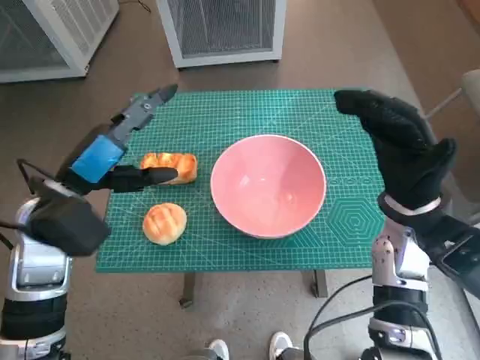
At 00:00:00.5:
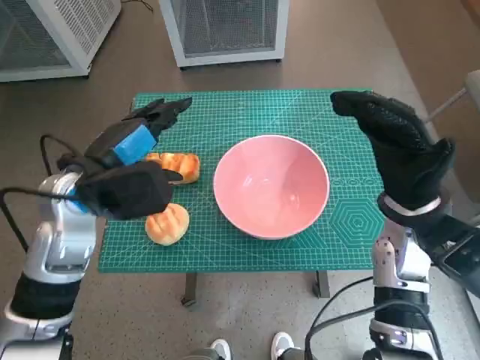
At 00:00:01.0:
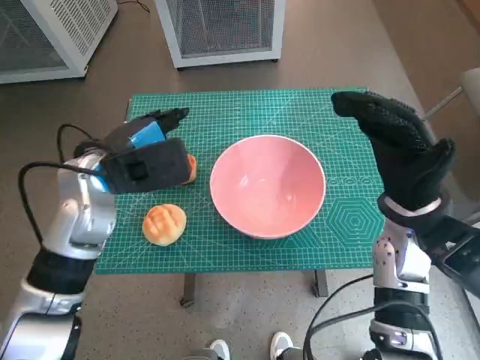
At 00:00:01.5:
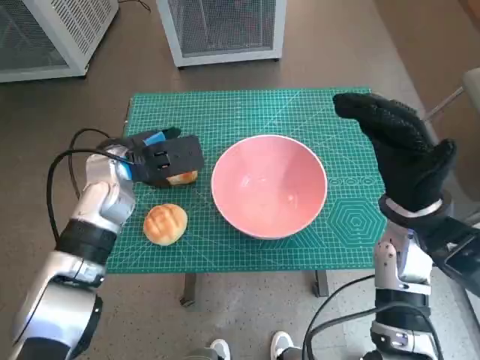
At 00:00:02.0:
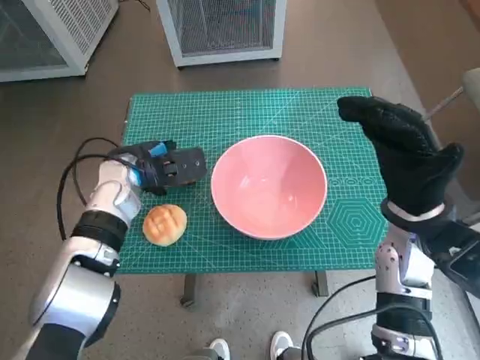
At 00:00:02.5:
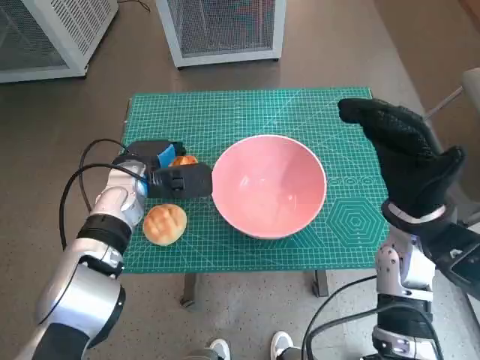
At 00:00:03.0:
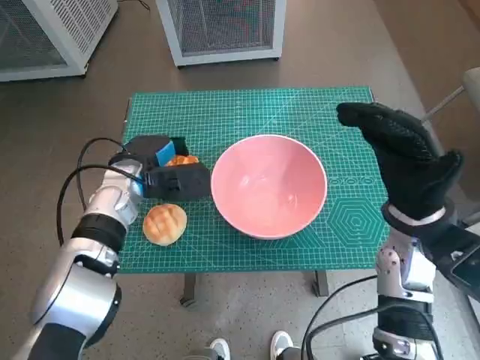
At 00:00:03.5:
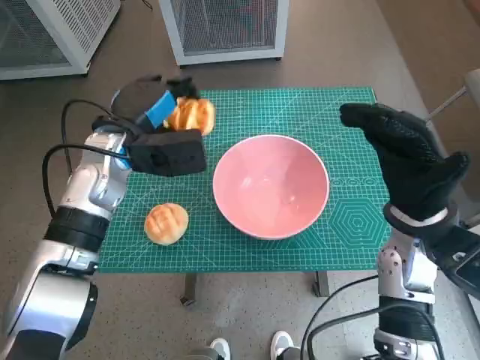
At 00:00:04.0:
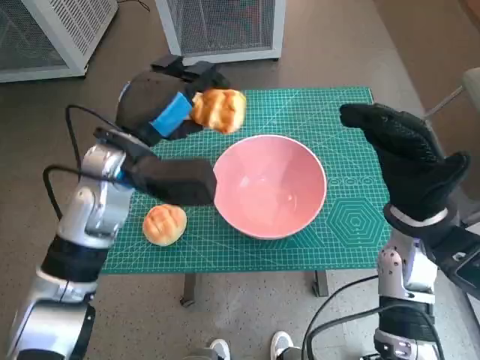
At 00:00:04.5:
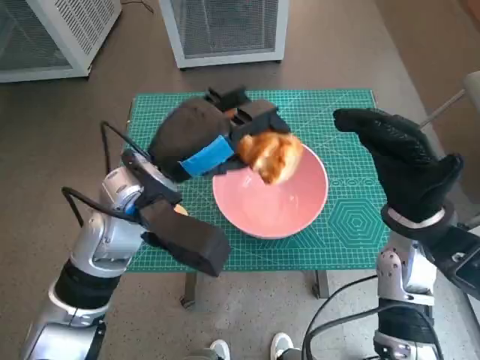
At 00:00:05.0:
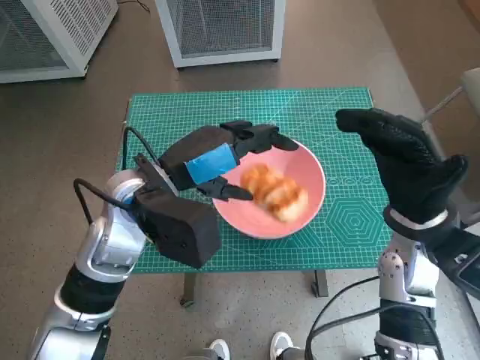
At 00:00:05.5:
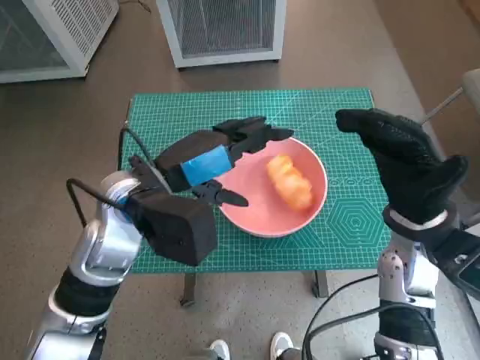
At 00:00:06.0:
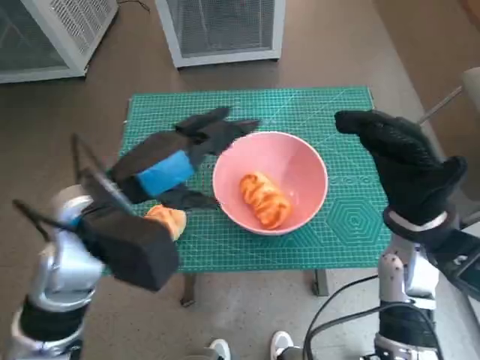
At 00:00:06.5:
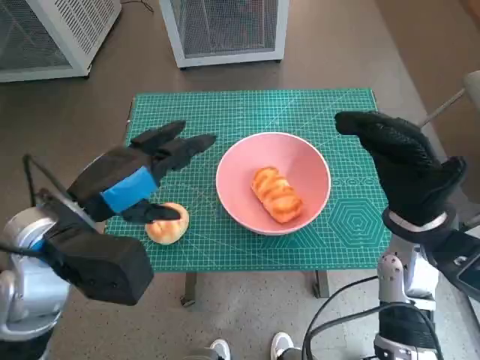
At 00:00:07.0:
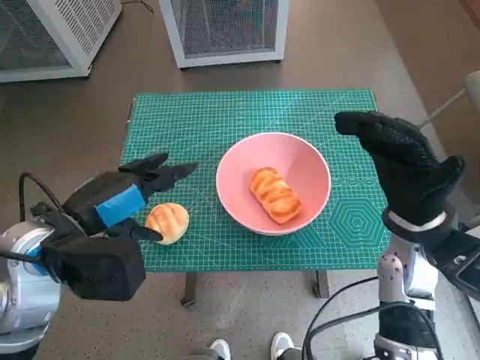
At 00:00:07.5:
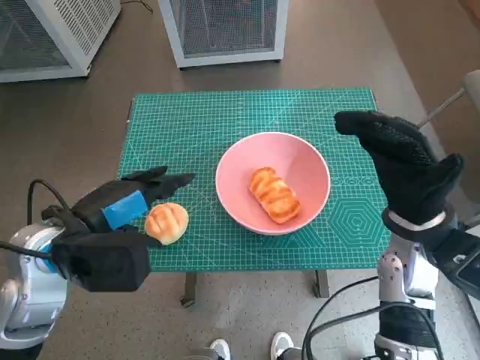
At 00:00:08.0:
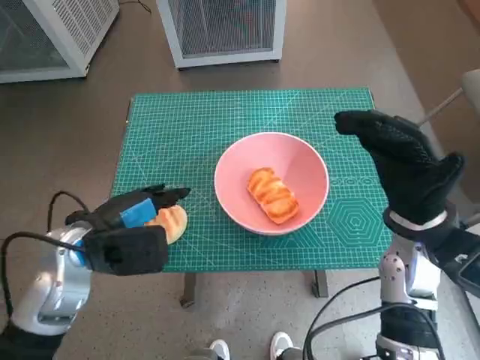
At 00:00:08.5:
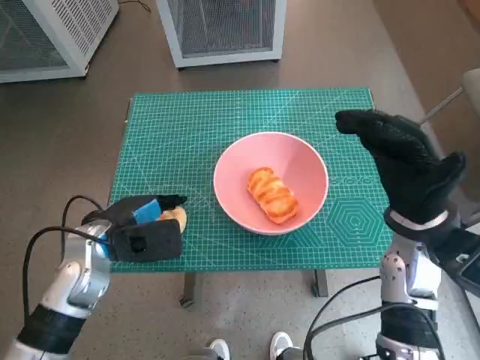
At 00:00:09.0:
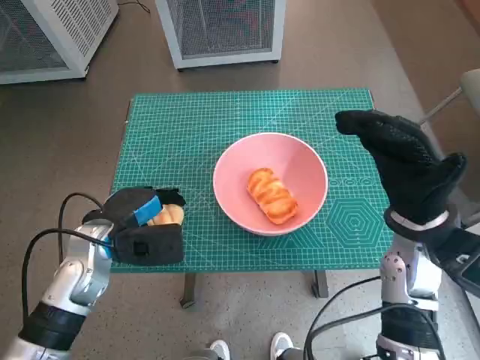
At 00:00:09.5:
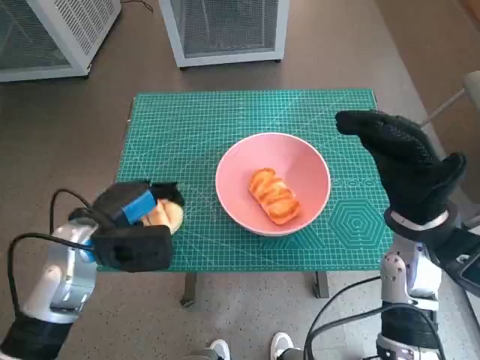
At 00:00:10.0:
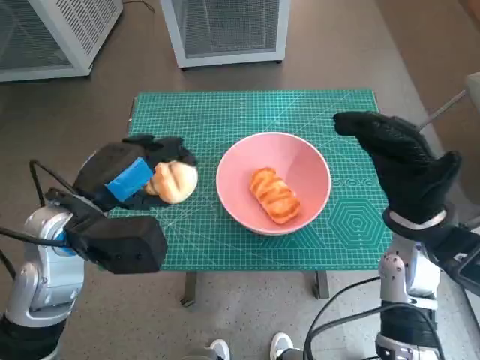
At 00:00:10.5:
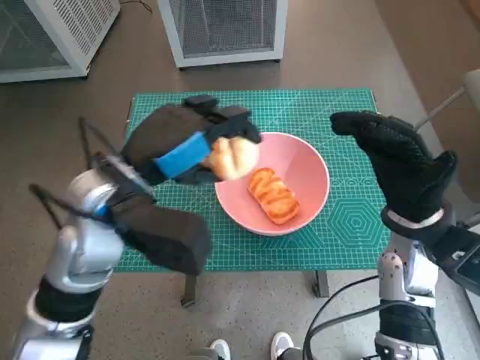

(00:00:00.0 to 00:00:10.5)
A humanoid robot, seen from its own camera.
Task of the whole recording: Push the bowl into the center of the table and put the bread into the bowl.
Step, 00:00:00.0 - 00:00:02.0: Grasp the long bread with left hand.
Step, 00:00:02.5 - 00:00:05.0: Place the long bread in pink bowl with left hand.
Step, 00:00:05.5 - 00:00:08.5: Grasp the round bread with left hand.
00:00:00.0 - 00:00:02.0: The left hand heads forward and downward, covering roughly 10 cm.
00:00:02.0 - 00:00:04.0: The left hand goes about 10 cm upward.
00:00:04.0 - 00:00:06.5: The left hand goes some 10 cm backward.
00:00:06.5 - 00:00:08.5: The left hand heads downward, covering some 10 cm.
00:00:08.5 - 00:00:10.5: The left hand shifts roughly 15 cm upward and to the right.

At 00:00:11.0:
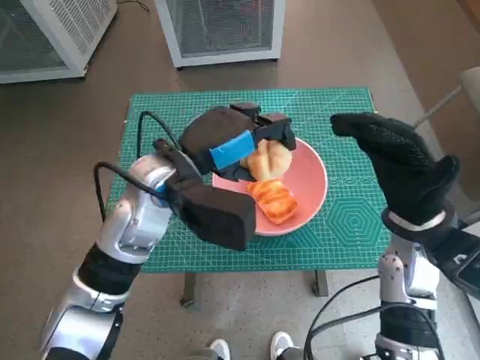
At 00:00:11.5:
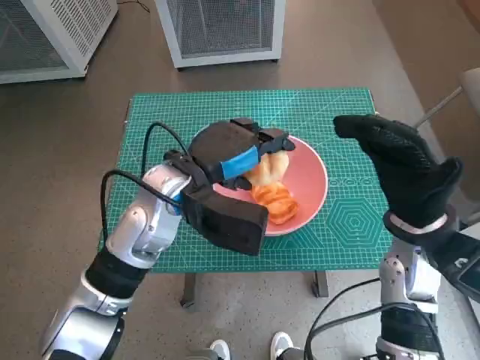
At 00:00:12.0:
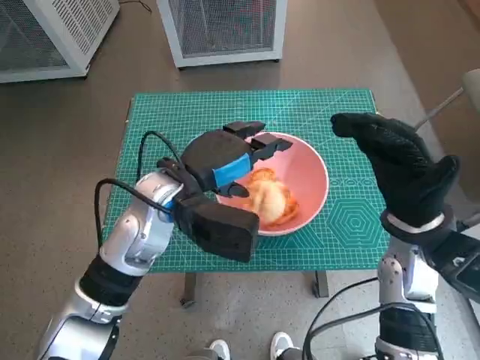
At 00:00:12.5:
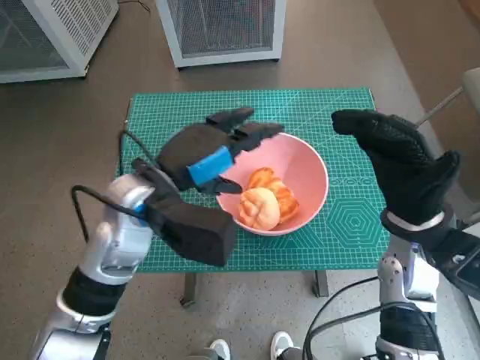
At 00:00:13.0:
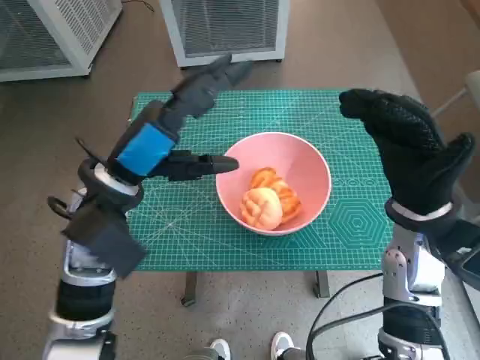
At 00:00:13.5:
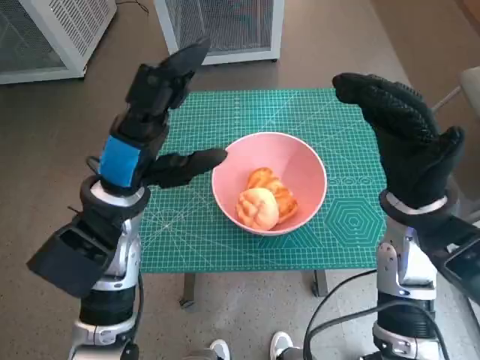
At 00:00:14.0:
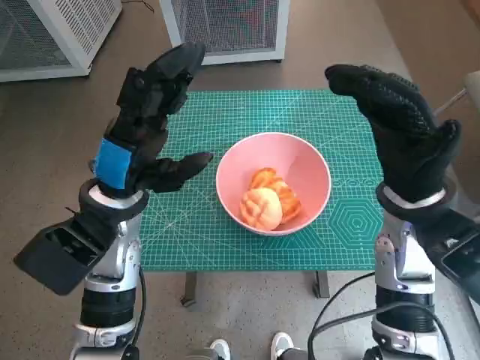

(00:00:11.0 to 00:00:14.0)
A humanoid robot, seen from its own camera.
Task of the whole recording: Push the bowl into the center of the table and put the bread into the bowl.
00:00:11.0 - 00:00:12.5: There are only small adjustments of the hands.

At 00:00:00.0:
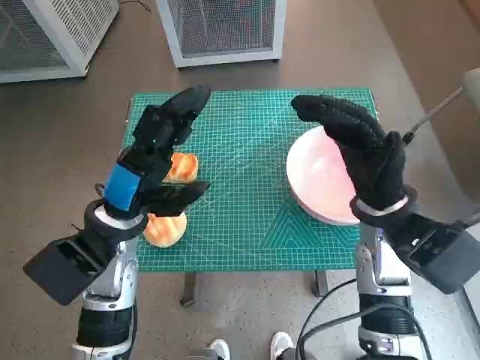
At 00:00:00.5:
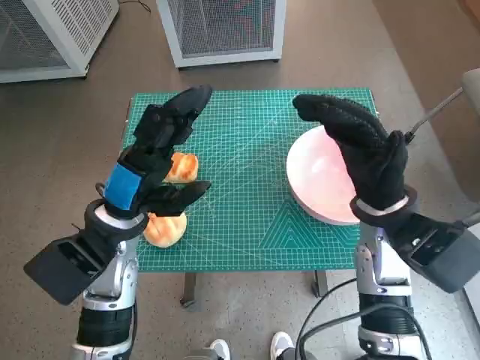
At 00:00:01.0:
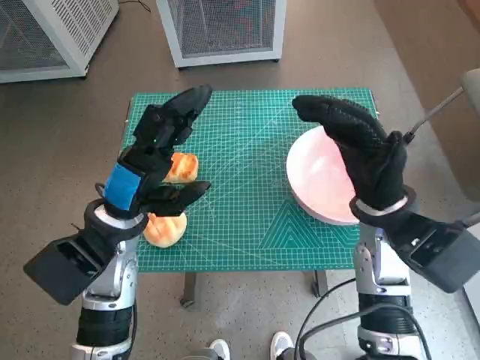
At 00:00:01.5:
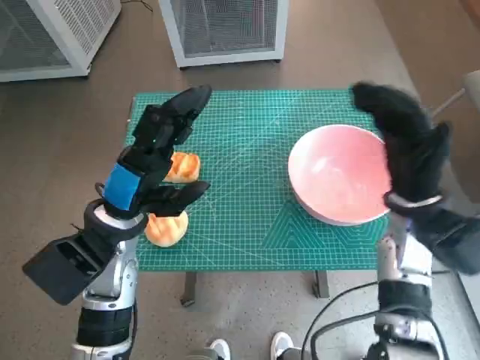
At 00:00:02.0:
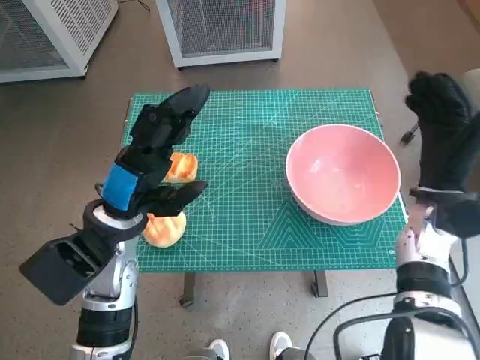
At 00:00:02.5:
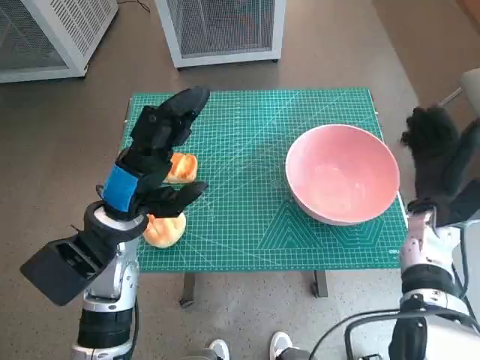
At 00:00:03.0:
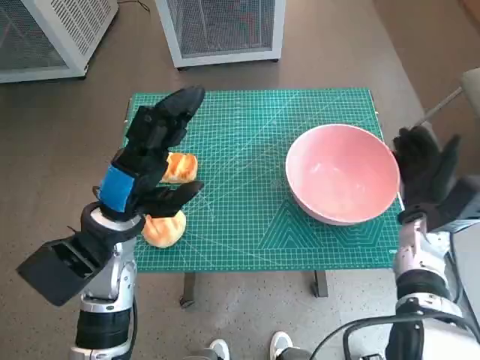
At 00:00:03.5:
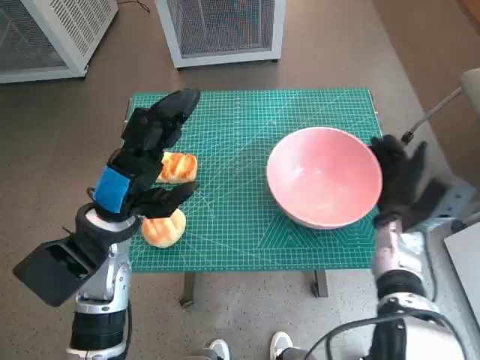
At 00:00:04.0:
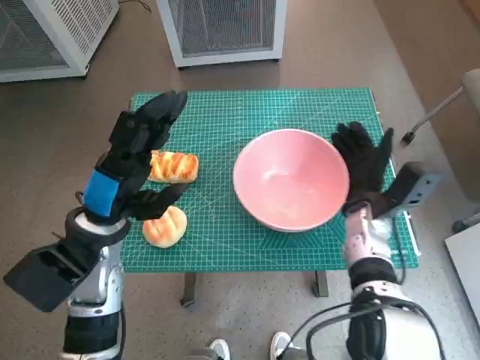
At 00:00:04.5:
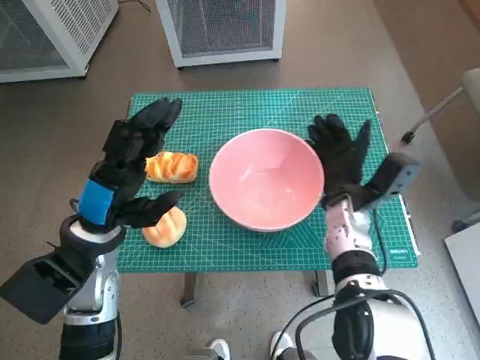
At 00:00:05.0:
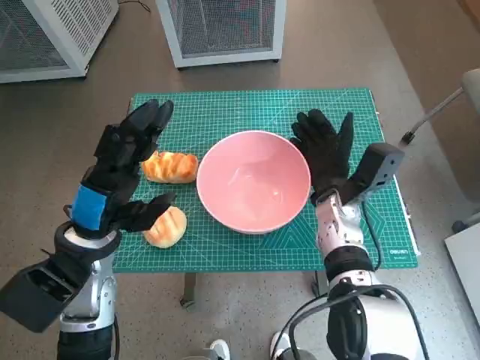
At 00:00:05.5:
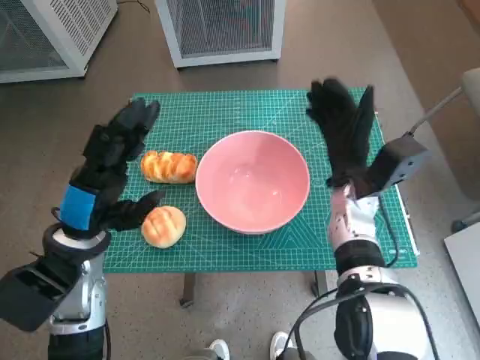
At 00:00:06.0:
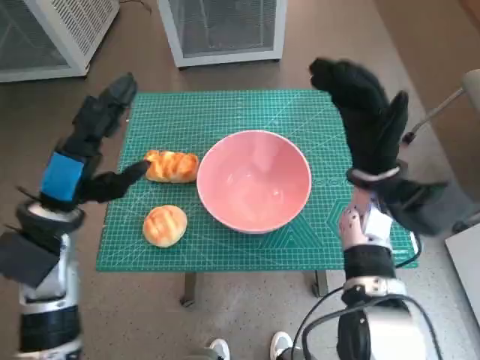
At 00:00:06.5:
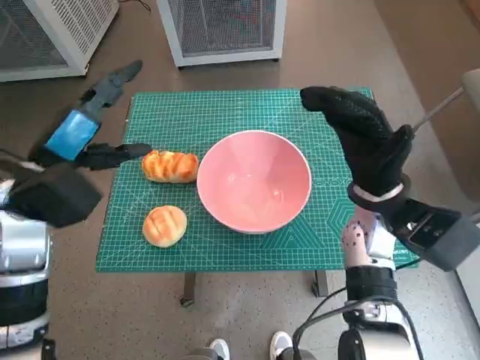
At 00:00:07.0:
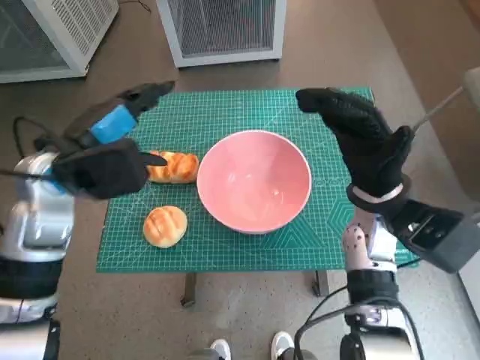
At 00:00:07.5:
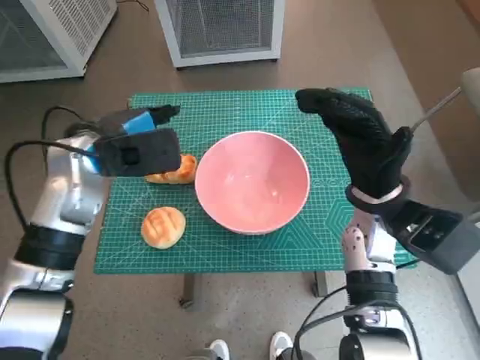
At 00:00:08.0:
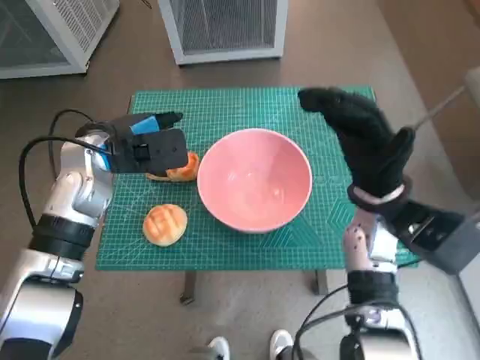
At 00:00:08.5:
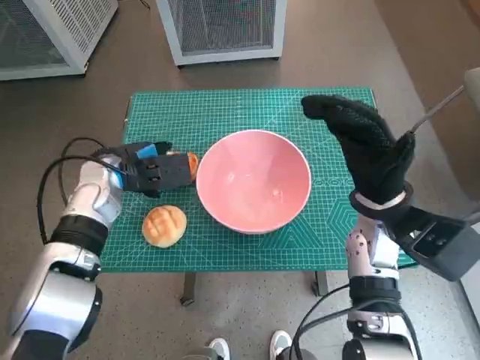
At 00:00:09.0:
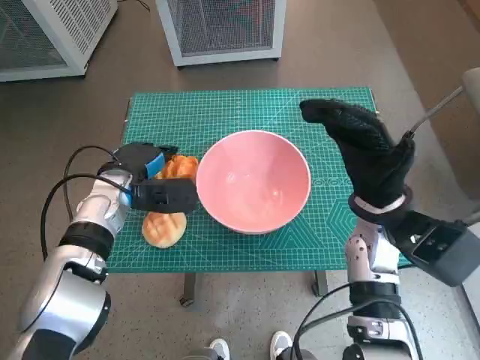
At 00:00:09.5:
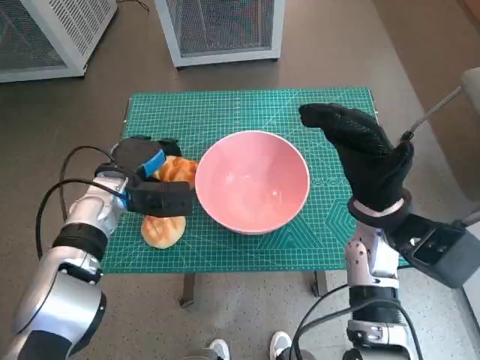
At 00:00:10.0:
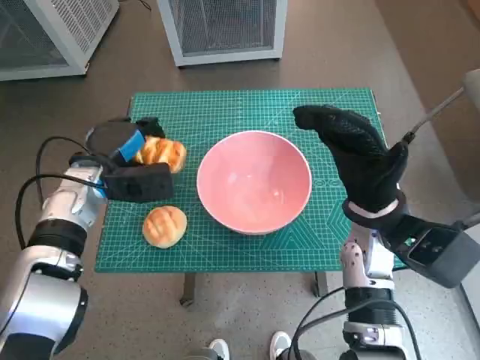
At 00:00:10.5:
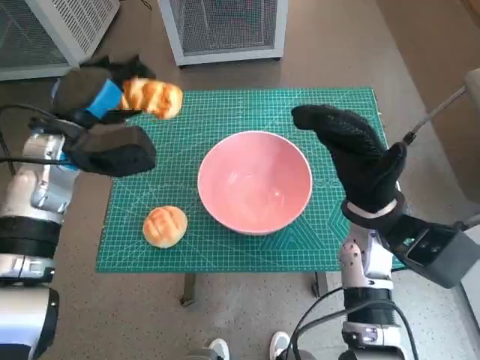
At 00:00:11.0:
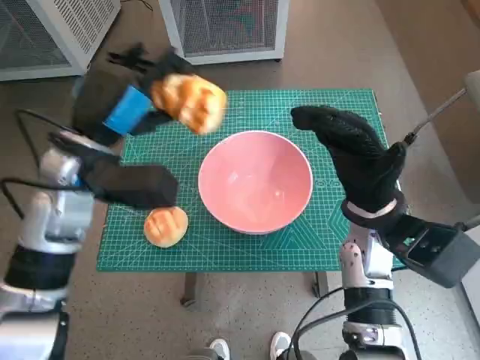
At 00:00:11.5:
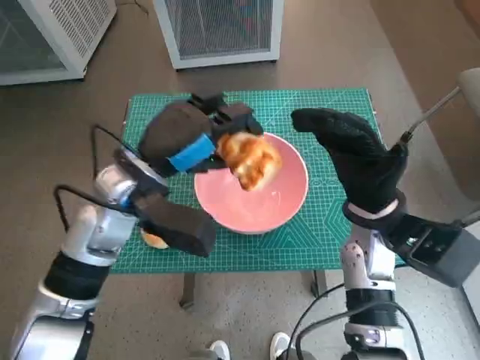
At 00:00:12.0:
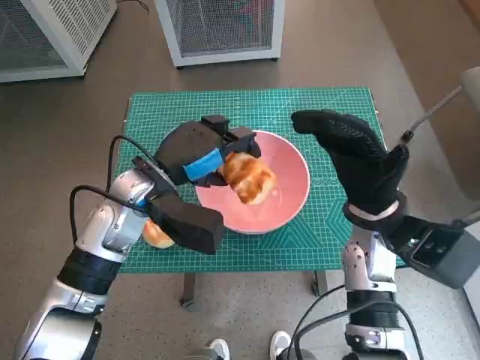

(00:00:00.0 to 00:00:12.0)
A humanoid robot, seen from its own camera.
Task of the whole recording: Push the bowl into the center of the table and put the bread into the bowl.
Step, 00:00:00.0 - 00:00:05.0: Move the pink bowl to the center of table with right hand.
Step, 00:00:05.5 - 00:00:09.0: Grasp the long bread with left hand.
00:00:02.0 - 00:00:04.0: The right hand shifts about 10 cm to the left and downward.
00:00:04.0 - 00:00:06.0: The right hand moves upward, roughly 10 cm.
00:00:06.0 - 00:00:08.0: The left hand shifts approximately 10 cm forward.
00:00:08.0 - 00:00:10.0: The left hand moves downward, some 5 cm.
00:00:10.0 - 00:00:12.0: The left hand travels to the right by roughly 10 cm.
